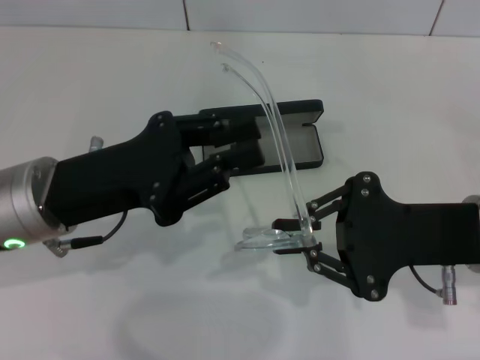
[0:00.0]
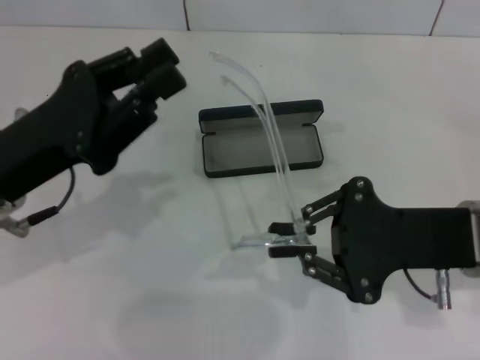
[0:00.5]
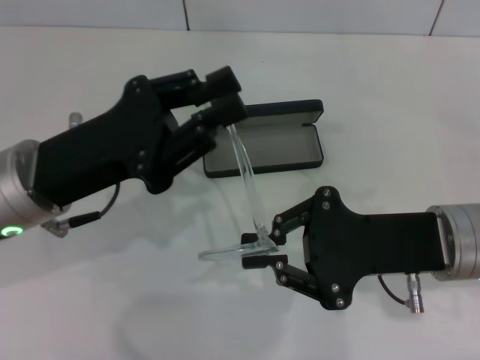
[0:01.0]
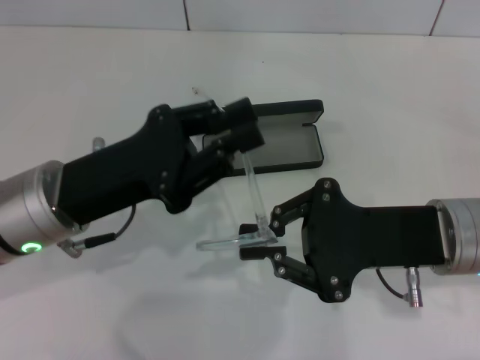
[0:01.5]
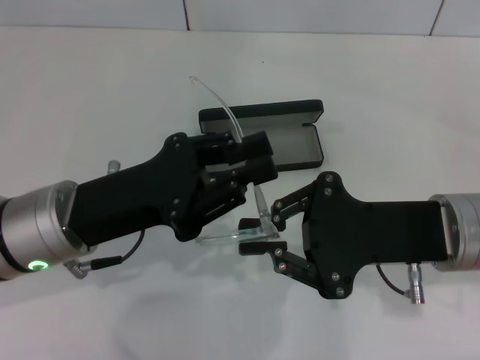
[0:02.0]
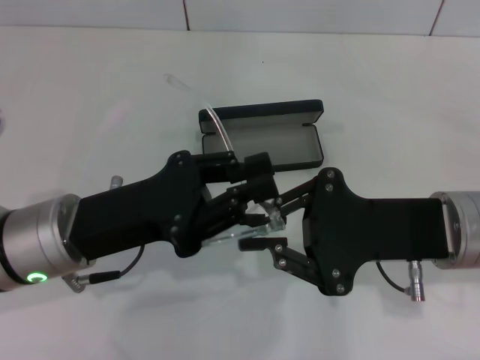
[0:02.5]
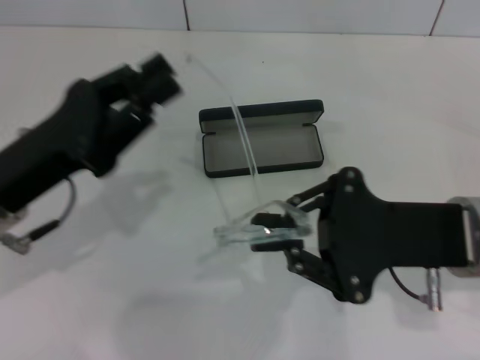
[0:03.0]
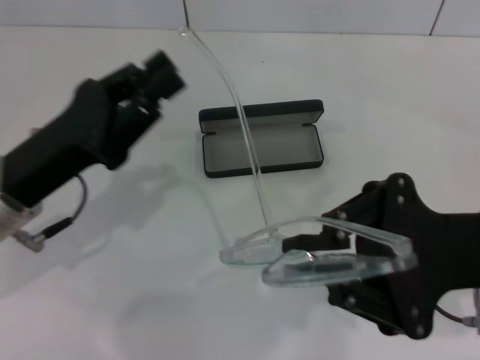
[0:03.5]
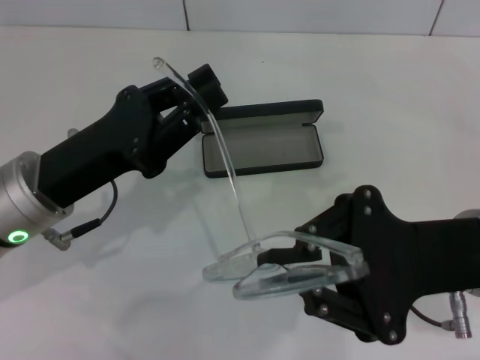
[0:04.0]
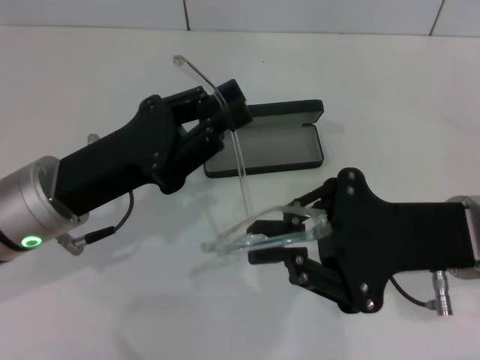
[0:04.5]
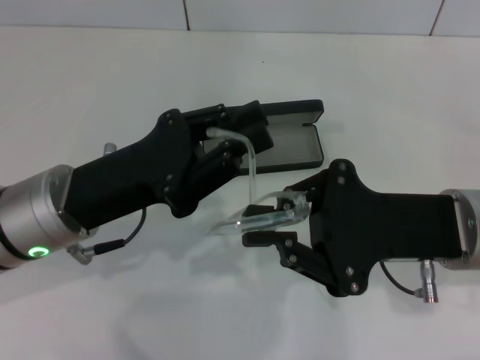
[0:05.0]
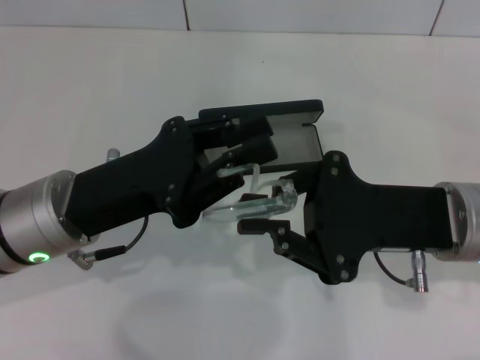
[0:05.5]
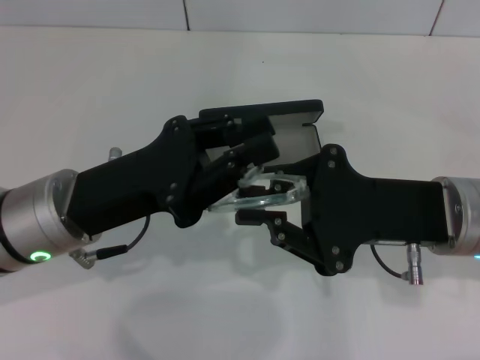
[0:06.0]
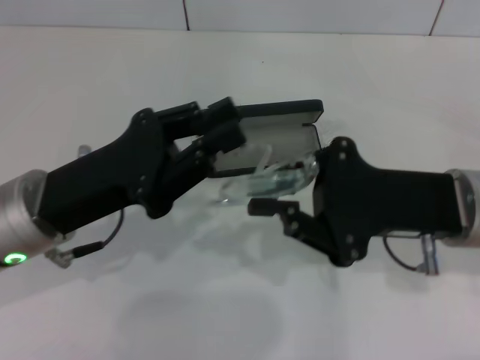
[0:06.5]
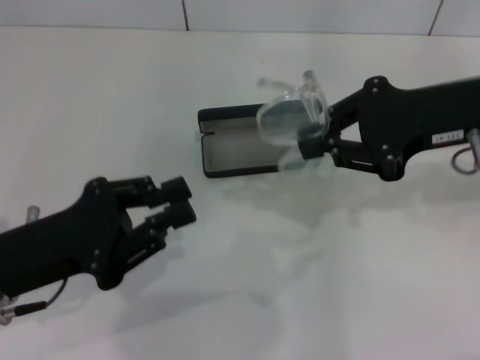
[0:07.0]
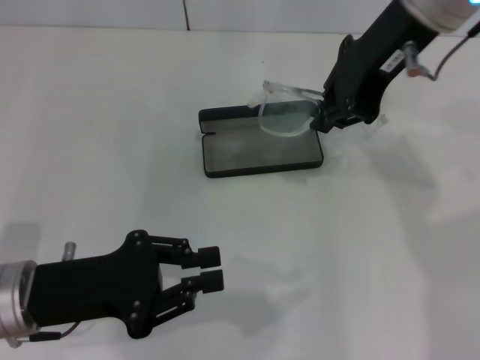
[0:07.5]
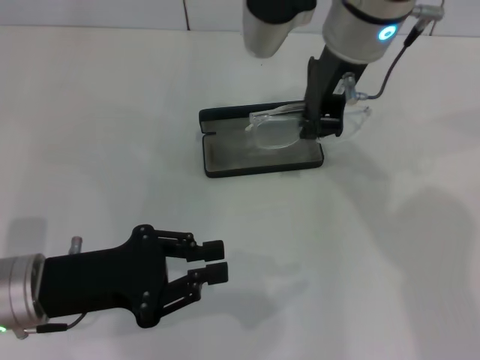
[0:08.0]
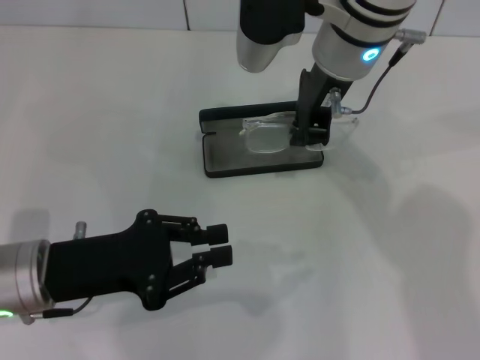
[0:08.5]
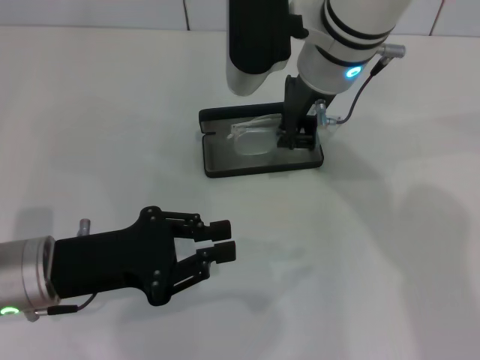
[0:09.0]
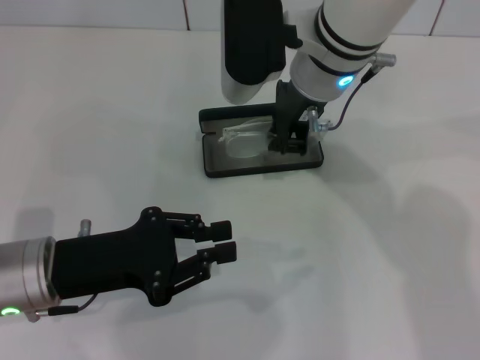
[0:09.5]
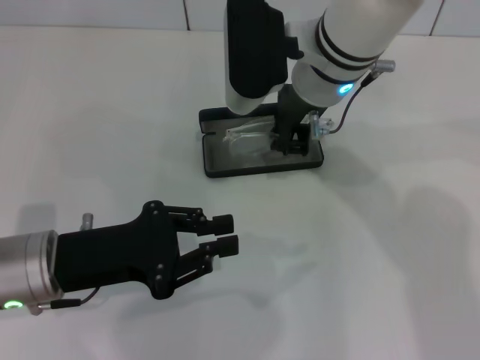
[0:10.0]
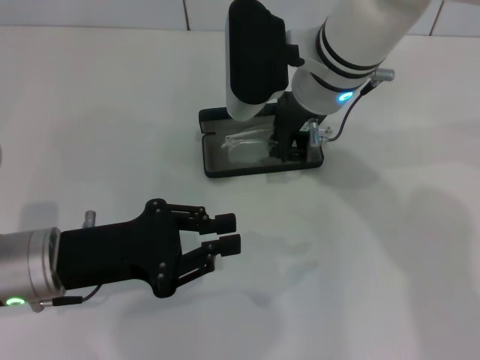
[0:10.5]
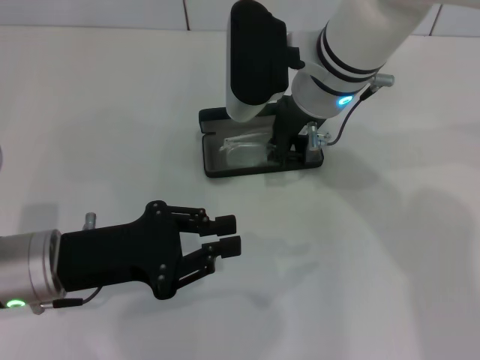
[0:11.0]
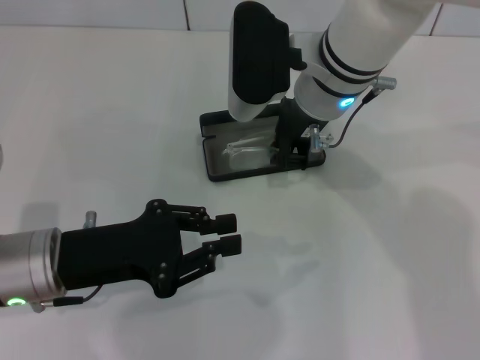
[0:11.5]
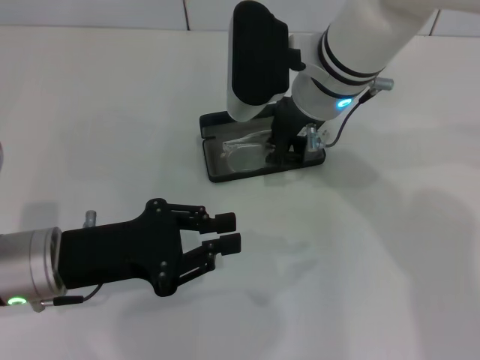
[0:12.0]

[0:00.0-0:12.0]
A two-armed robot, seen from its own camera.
Step, 0:00.0 to 0:05.5: Fold the frame with your left hand.
0:06.0 to 0:08.0: The right gripper travels forward, upward and to the left by about 20 cm; the left gripper heads to the left, covering some 5 cm.
0:08.0 to 0:10.0: The right gripper moves downward, roughly 5 cm.
0:10.0 to 0:12.0: Both grippers stay about where they are.

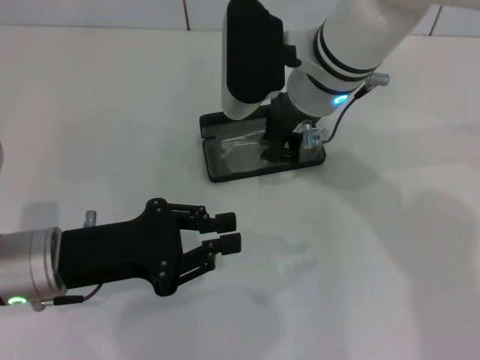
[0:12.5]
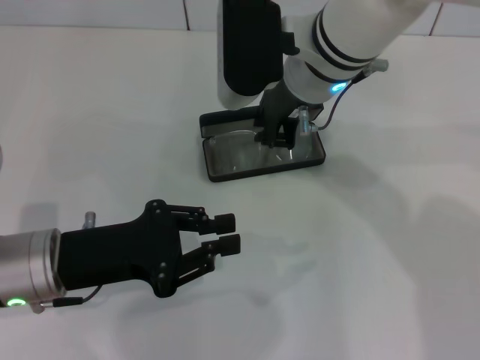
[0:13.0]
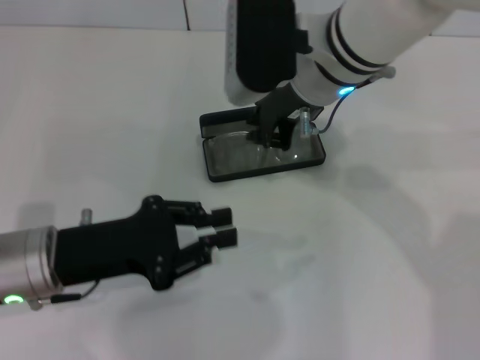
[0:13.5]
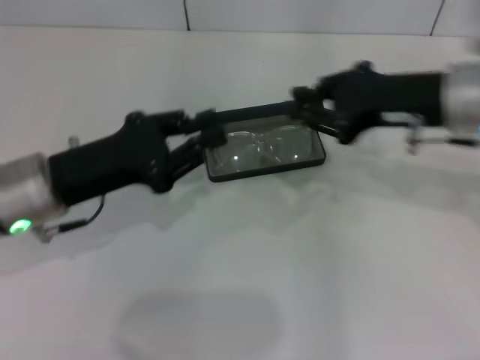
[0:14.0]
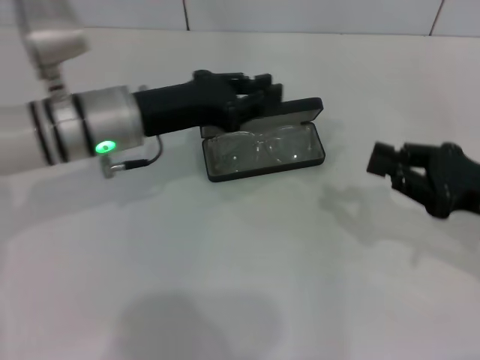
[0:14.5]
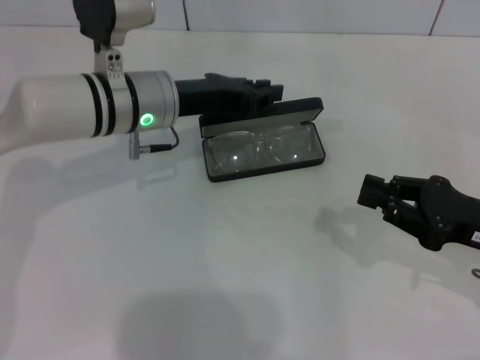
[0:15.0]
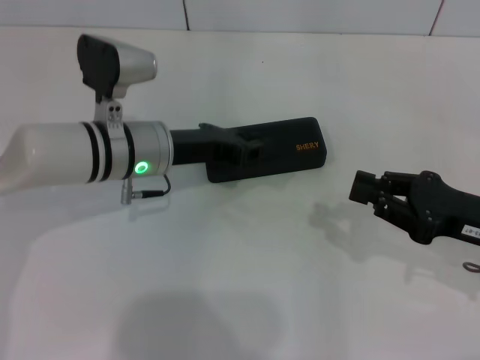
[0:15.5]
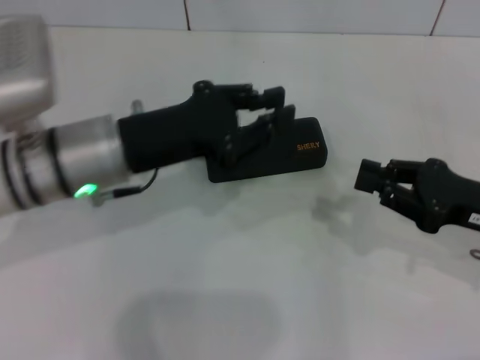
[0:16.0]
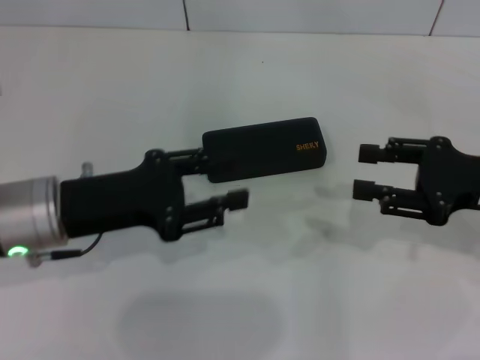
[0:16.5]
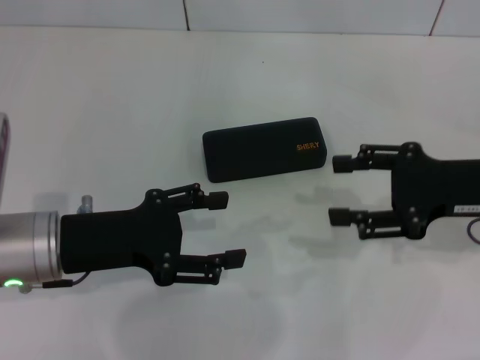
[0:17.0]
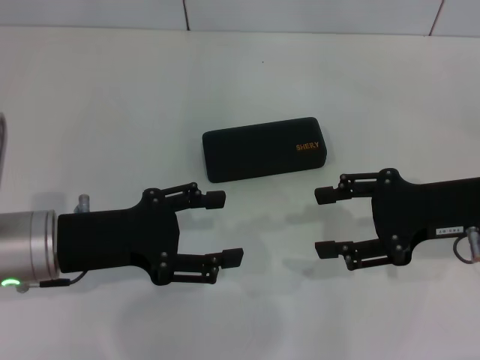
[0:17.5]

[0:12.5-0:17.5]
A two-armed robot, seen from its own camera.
Step, 0:14.0 to 0:16.0: Close the glasses case with your left hand.
0:12.5 to 0:15.0: The right gripper heads to the right, backward and downward, covering some 30 cm. Meanwhile the left gripper moves forward and to the right, roughly 15 cm.
0:15.0 to 0:17.5: The left gripper travels backward and to the left by approximately 15 cm, and opens, while the right gripper changes place by about 5 cm, and opens.
